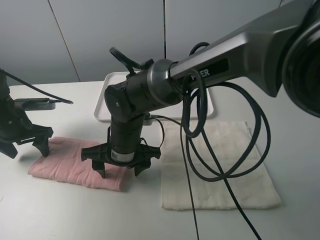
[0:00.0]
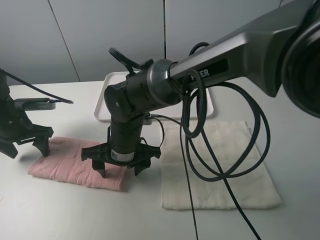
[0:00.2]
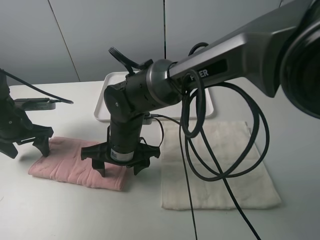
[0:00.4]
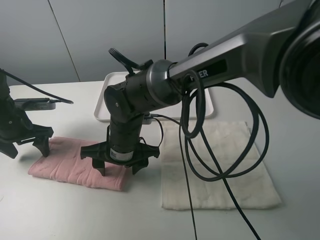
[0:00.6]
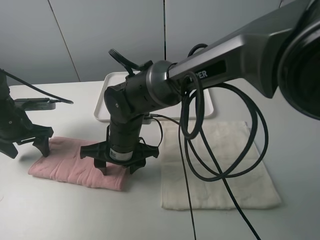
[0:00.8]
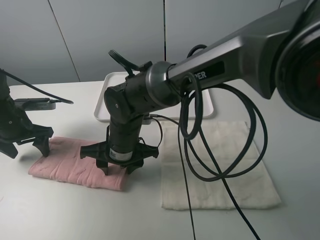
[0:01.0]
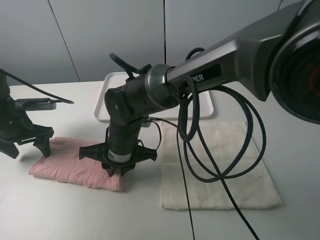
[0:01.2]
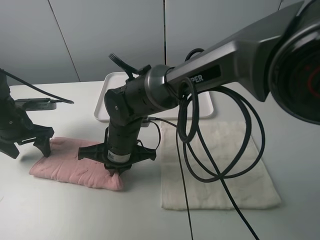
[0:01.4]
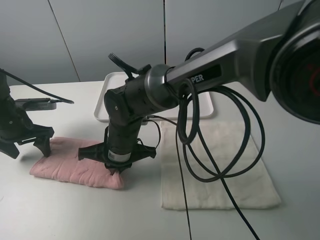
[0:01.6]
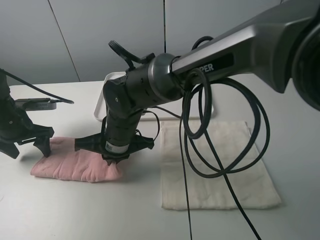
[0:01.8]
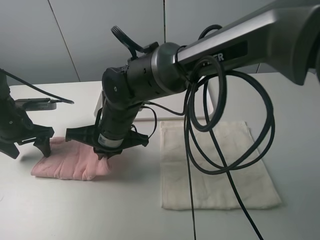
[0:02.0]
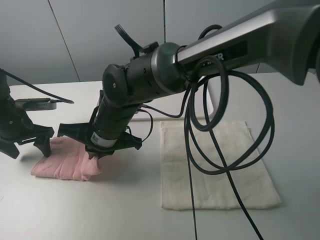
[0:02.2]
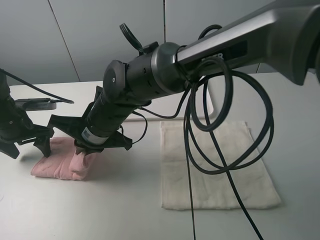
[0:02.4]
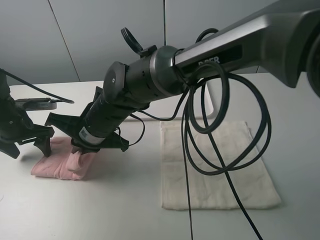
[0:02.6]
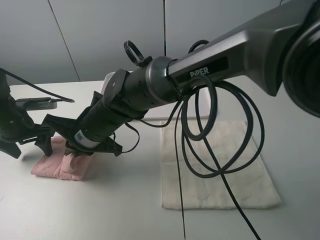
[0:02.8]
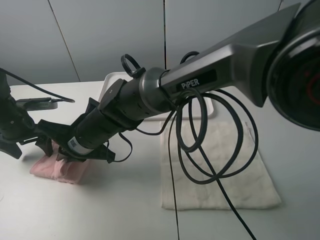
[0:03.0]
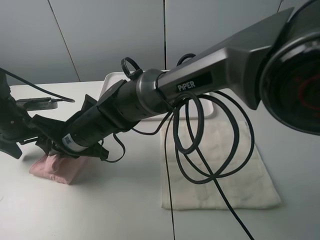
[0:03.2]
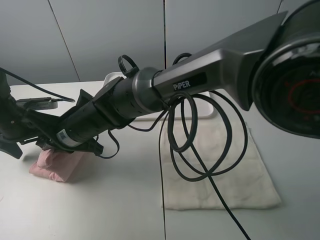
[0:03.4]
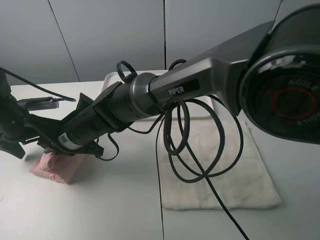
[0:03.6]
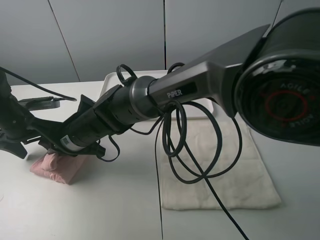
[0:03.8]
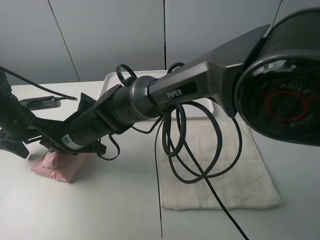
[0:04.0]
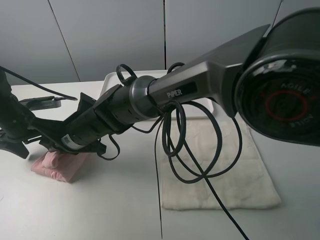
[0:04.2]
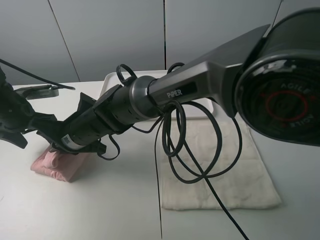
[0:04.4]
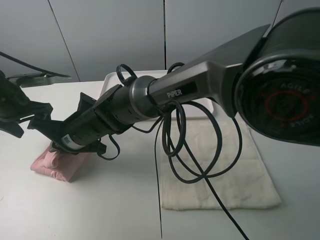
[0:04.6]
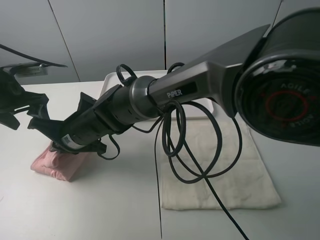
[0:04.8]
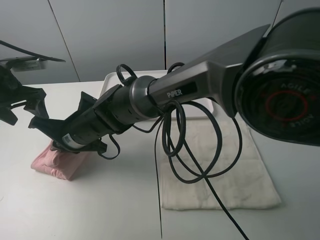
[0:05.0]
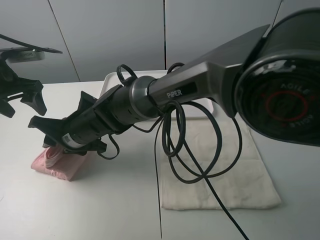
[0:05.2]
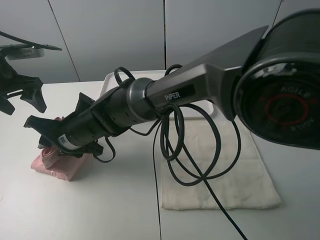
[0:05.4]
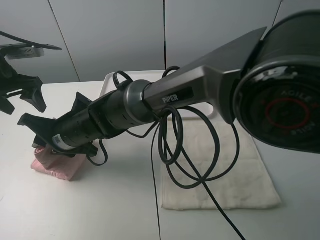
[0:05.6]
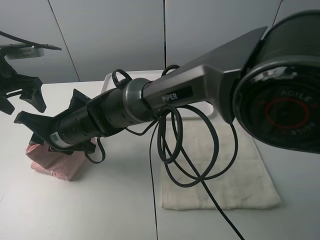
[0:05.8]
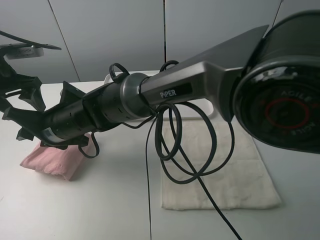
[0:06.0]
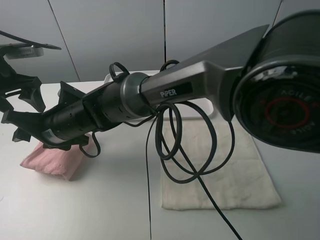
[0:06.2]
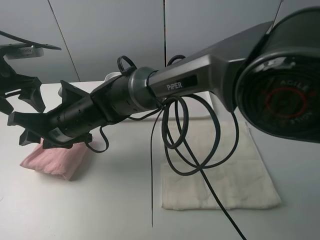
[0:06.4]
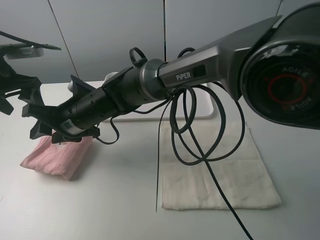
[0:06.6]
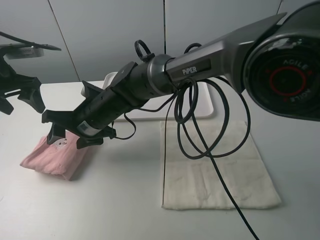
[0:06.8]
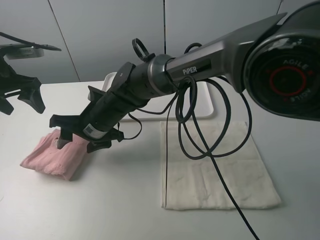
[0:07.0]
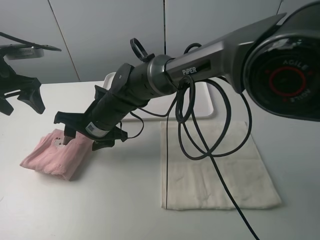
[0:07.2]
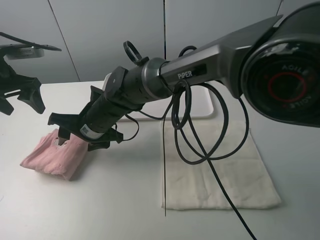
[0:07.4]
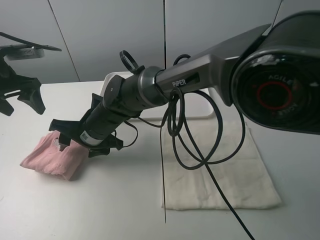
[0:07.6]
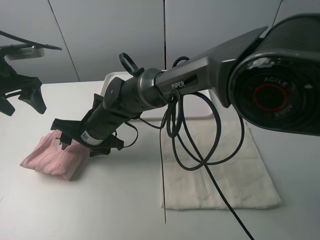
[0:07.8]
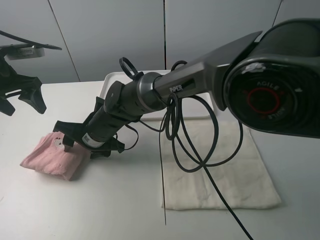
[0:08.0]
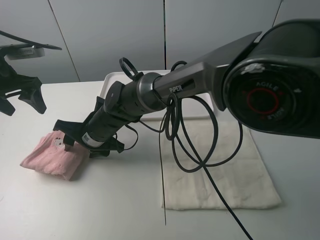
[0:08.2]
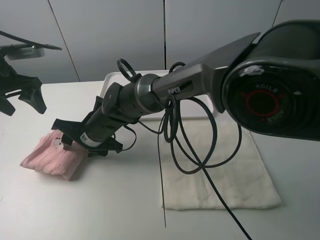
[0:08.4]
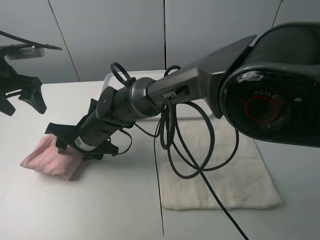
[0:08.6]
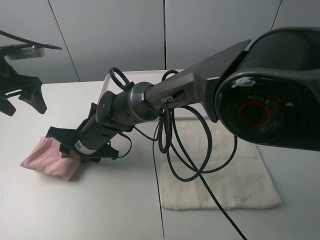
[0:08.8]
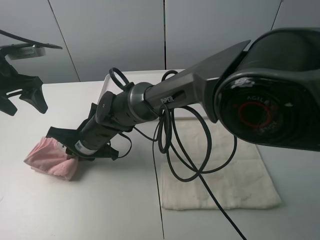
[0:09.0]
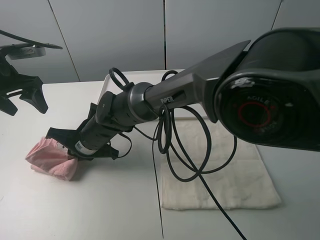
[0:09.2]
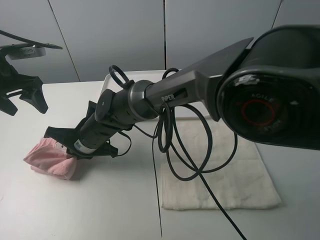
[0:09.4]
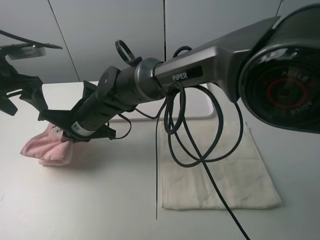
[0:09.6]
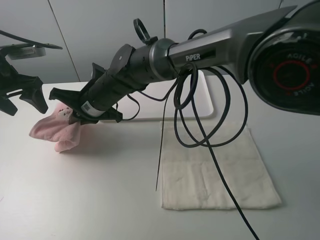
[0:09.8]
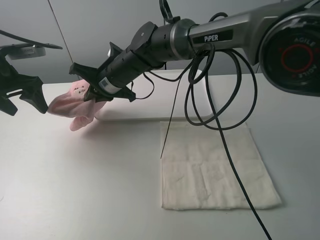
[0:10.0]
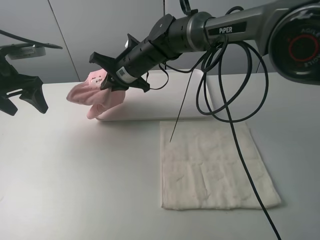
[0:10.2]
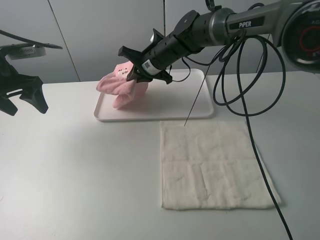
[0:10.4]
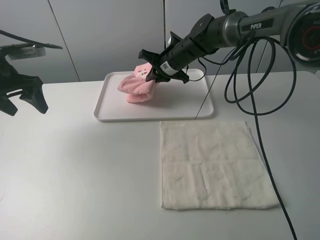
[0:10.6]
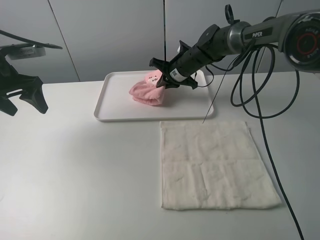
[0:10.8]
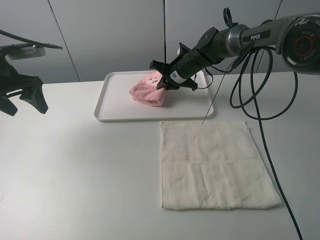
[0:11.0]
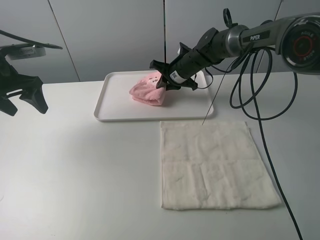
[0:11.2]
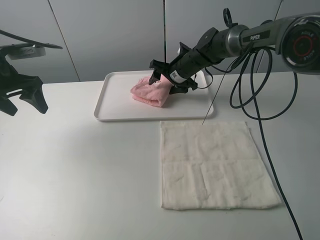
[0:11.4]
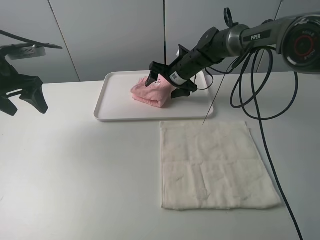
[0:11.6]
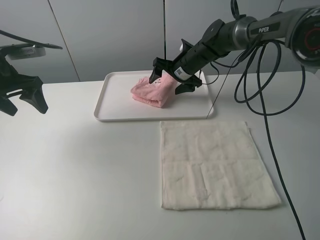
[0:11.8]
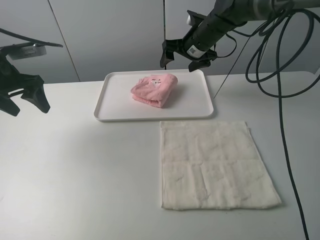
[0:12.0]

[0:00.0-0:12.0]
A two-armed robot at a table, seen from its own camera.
Task of the whole recording: fold one of the towels by two grippers and place it on the tray,then fold another towel by two grippers and place it on the folded towel.
Step, 0:01.8 to 0:06.0: Fold the pink towel from right to left with right gripper.
Step, 0:06.2 to 0:09.2: Grasp the pink towel with the right gripper.
Step, 0:09.4 to 0:11.4: Move the pink towel to the plate with the right gripper.
0:00.0 to 0:01.6: The right gripper closes its fingers.
0:01.6 to 0:03.0: The right gripper goes roughly 5 cm to the left.
0:04.4 to 0:06.0: The left gripper moves upward, roughly 10 cm. Meanwhile the right gripper opens up.
0:06.0 to 0:07.6: The right gripper moves roughly 5 cm.
0:07.6 to 0:09.0: The right gripper closes.
0:09.0 to 0:10.4: The right gripper moves forward, to the right and upward, some 25 cm.
0:10.4 to 0:12.0: The right gripper moves to the right and upward, approximately 10 cm, and opens.

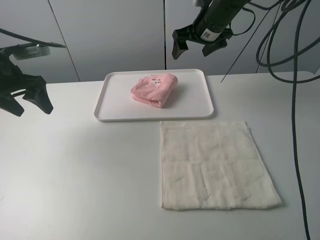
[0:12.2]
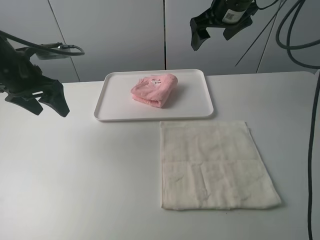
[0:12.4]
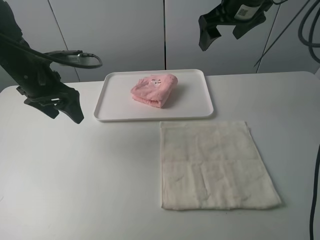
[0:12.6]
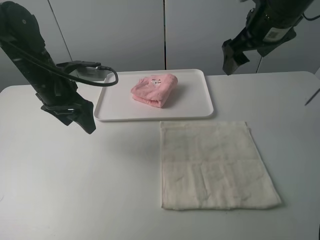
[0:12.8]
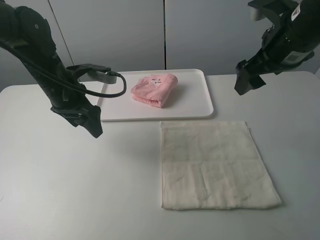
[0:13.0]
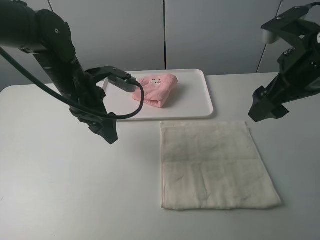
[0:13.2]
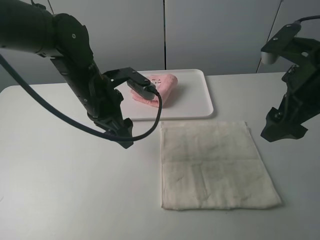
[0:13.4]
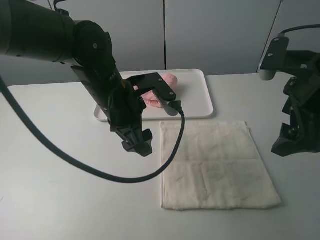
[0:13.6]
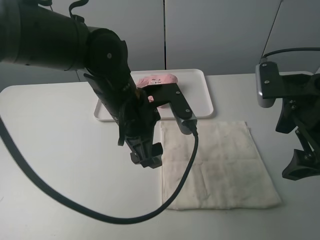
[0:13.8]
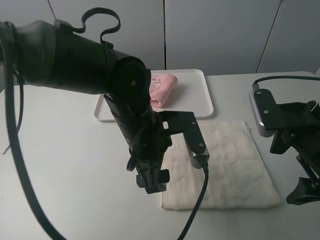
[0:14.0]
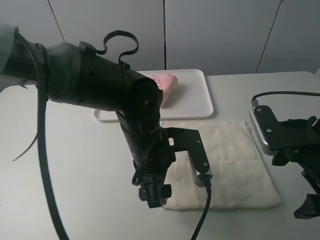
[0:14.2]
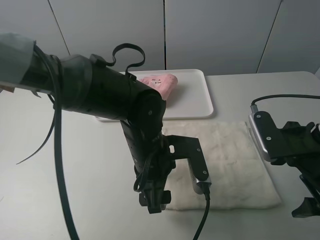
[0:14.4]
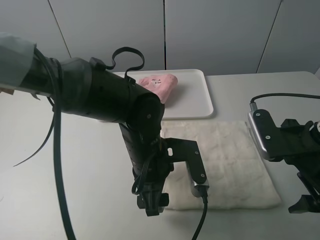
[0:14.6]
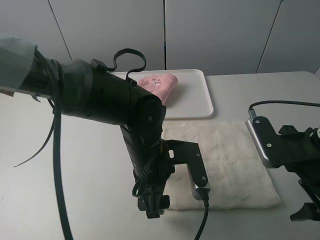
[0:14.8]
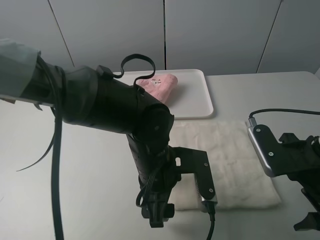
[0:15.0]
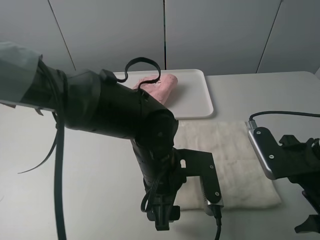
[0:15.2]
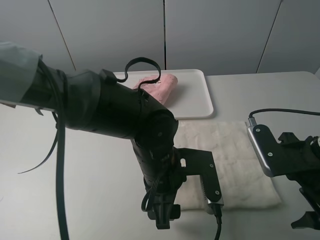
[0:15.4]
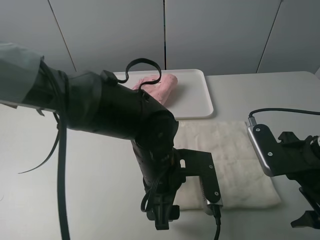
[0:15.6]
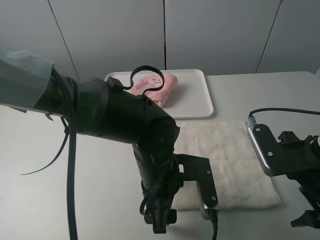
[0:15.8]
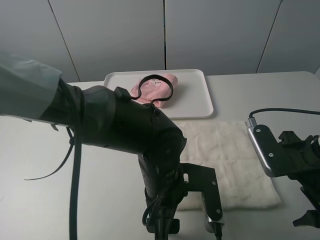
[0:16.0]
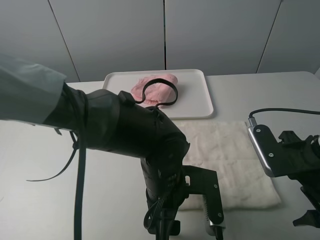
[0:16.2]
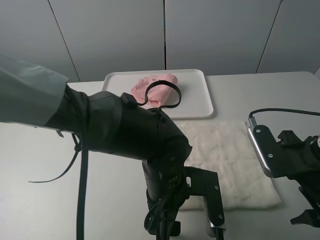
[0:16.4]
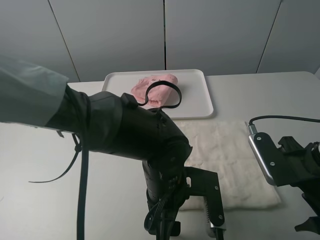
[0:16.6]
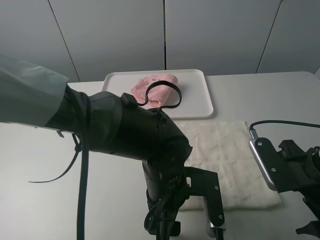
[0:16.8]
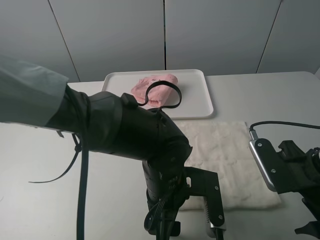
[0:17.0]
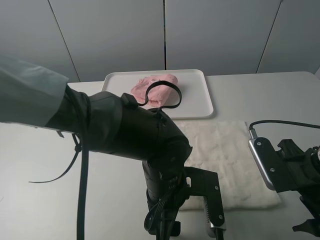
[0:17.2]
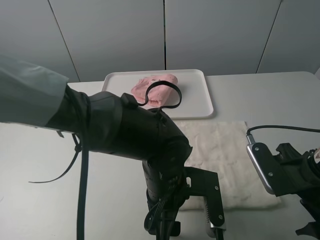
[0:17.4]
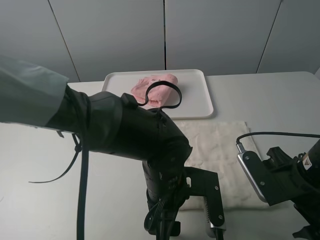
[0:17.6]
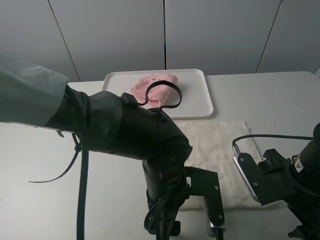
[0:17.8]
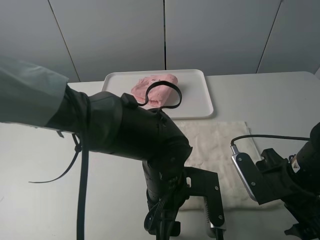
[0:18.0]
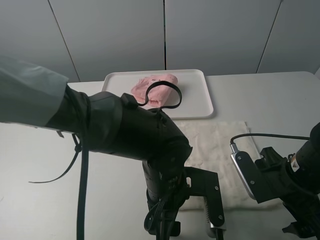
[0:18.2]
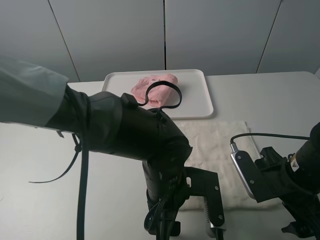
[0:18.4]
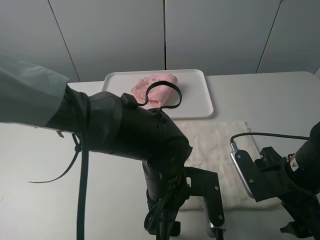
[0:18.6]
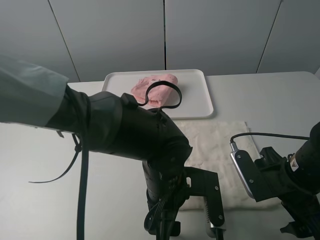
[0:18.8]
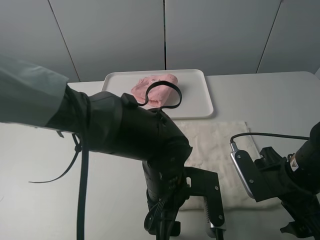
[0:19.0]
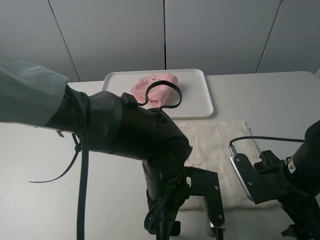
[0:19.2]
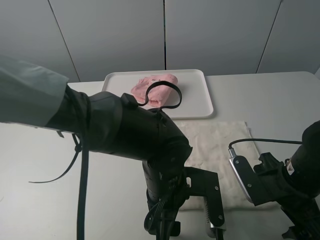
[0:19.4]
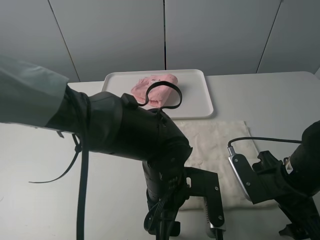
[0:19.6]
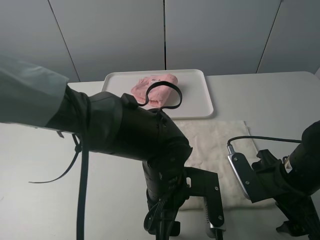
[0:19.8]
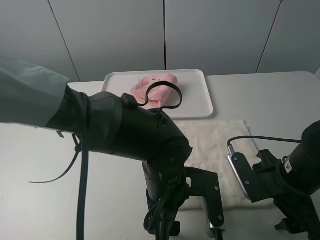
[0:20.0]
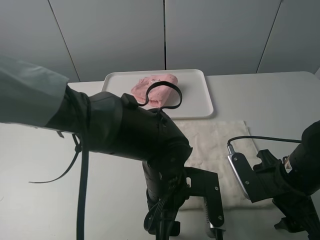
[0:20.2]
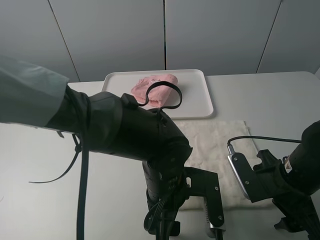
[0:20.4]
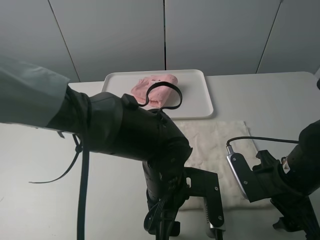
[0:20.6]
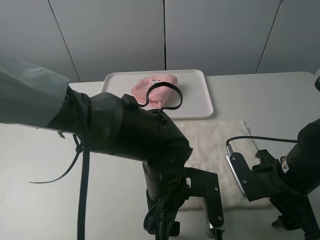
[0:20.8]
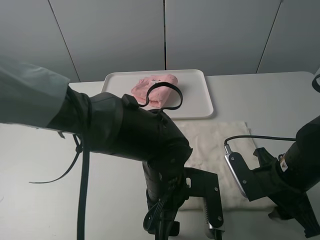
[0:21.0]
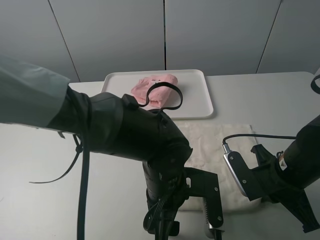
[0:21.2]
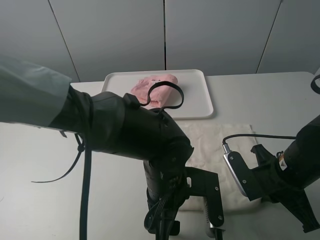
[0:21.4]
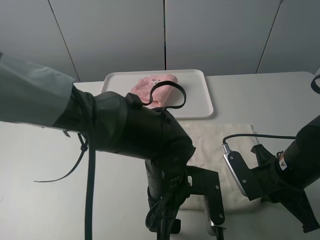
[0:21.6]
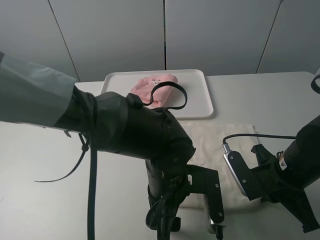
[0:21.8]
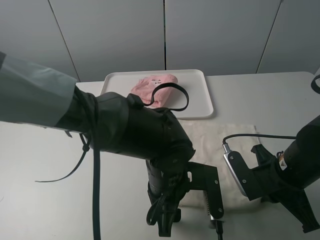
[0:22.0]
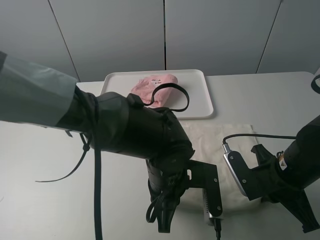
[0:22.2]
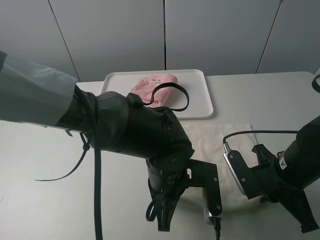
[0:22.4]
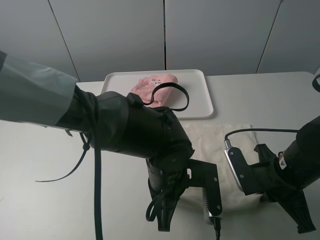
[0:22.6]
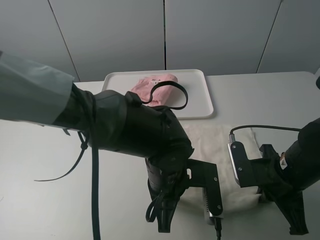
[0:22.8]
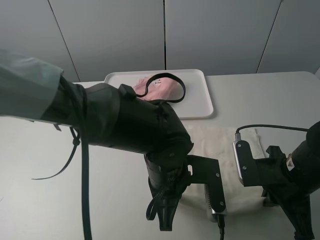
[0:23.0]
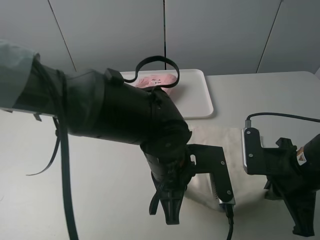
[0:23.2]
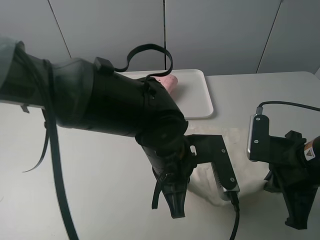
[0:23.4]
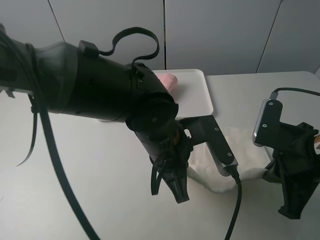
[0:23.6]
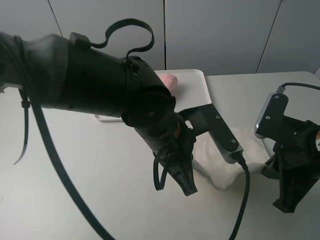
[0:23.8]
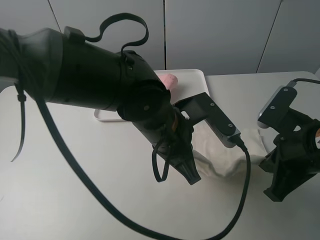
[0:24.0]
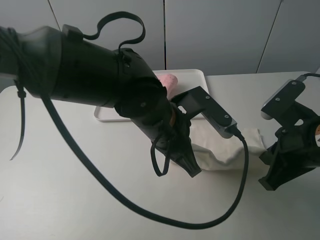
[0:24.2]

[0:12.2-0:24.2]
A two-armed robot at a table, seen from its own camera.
Task of the whole recording: fold one of the towels by two grippers and place it on the tray,then fold another towel by two grippers and place it on the folded towel.
Step, 0:12.2 to 0:22.6: Grasp the white towel with the left gripper.
0:12.2 to 0:13.8: The right gripper goes about 25 cm backward, while the left gripper shifts approximately 25 cm to the right.
0:13.8 to 0:15.2: The right gripper heads downward, covering about 5 cm; the left gripper is displaced downward and backward by some 10 cm.
0:15.2 to 0:18.2: The grippers make only small movements.
0:18.2 to 0:19.8: The two grippers keep their place.
0:19.8 to 0:21.2: The right gripper closes its fingers.
0:21.2 to 0:22.6: The left gripper closes up.
0:22.6 to 0:24.2: The grippers both shift upward by about 10 cm.
